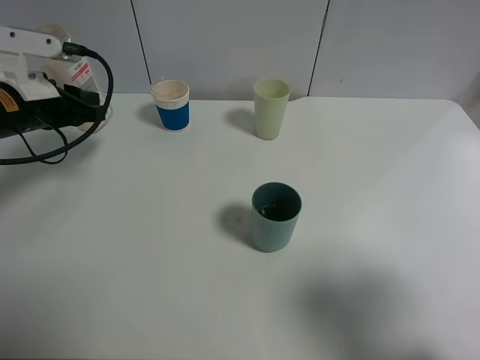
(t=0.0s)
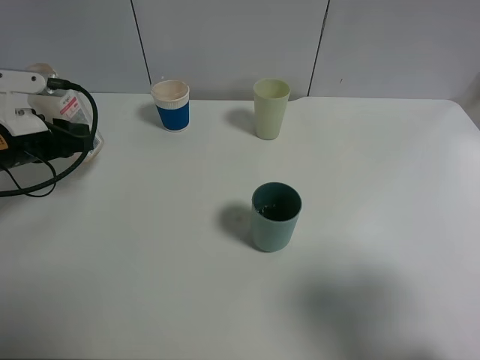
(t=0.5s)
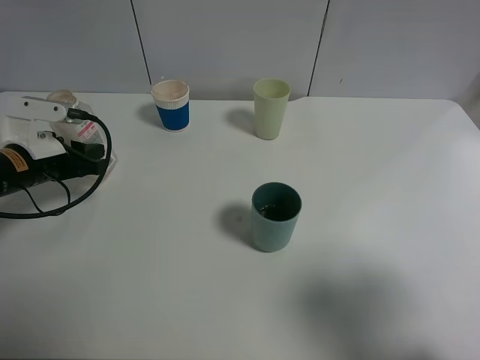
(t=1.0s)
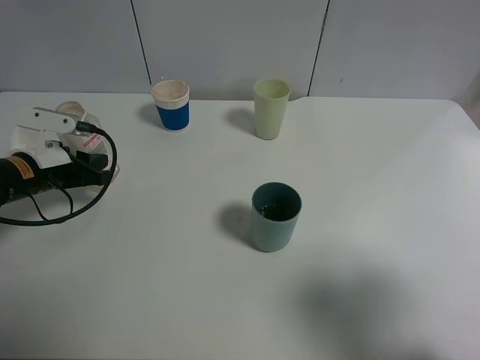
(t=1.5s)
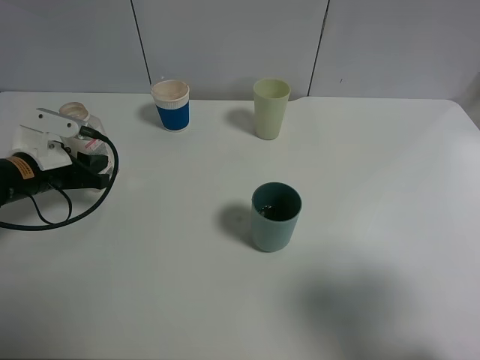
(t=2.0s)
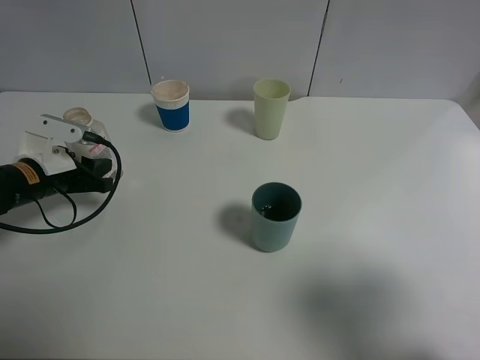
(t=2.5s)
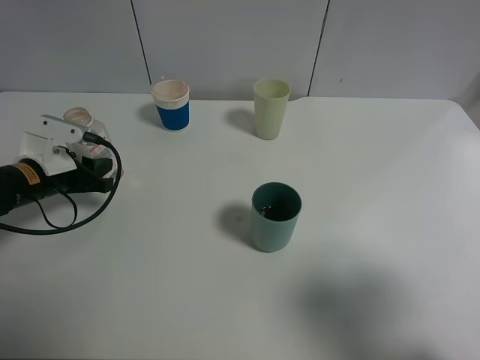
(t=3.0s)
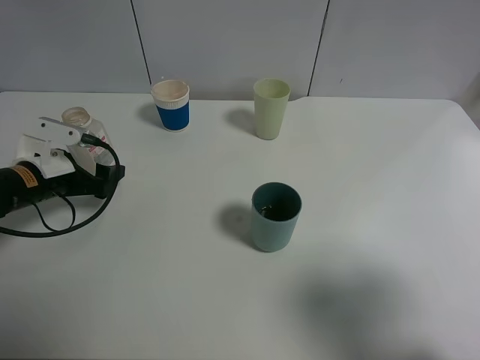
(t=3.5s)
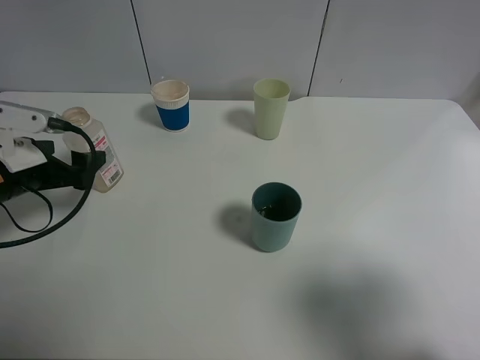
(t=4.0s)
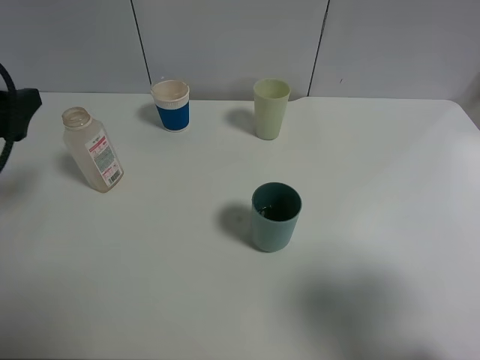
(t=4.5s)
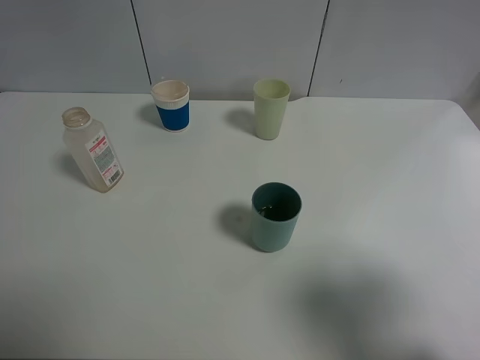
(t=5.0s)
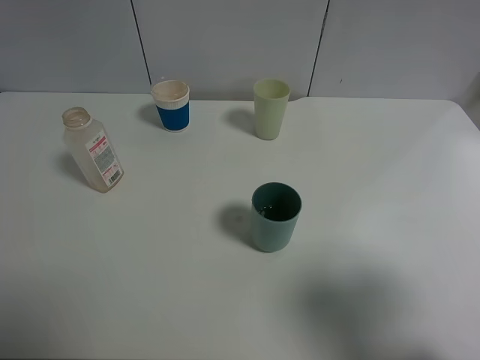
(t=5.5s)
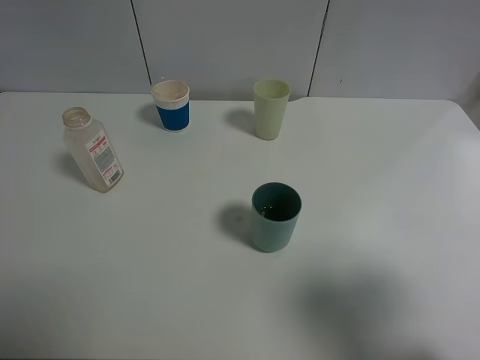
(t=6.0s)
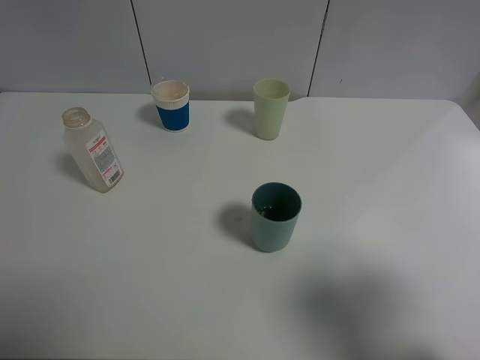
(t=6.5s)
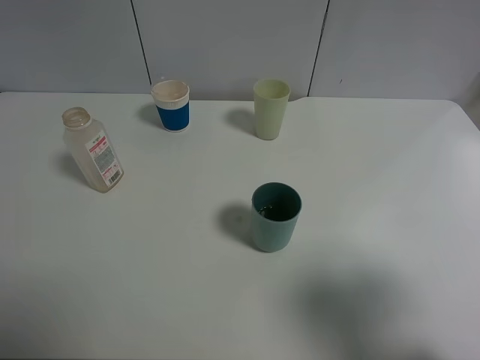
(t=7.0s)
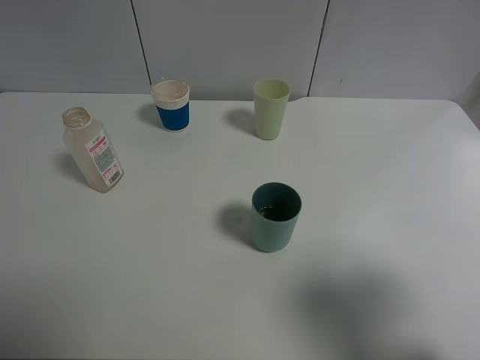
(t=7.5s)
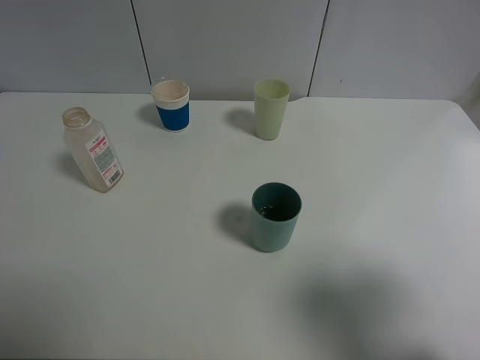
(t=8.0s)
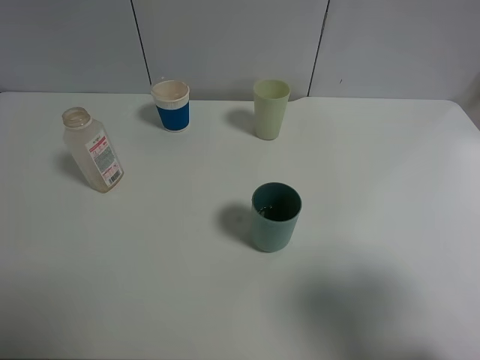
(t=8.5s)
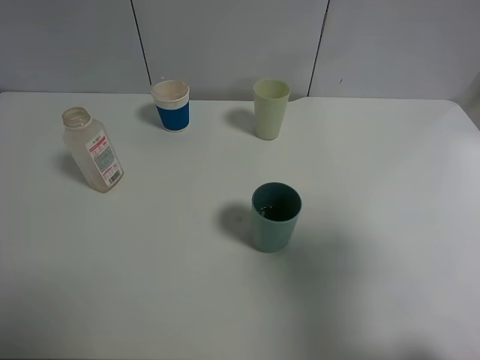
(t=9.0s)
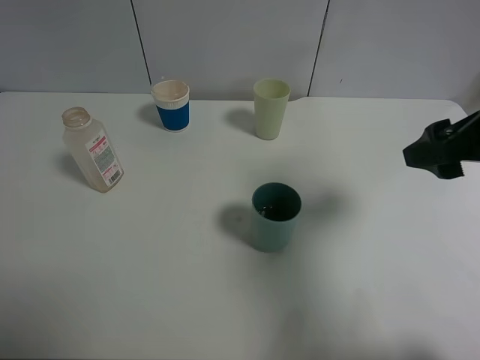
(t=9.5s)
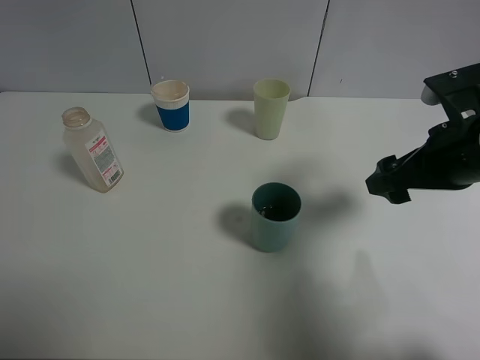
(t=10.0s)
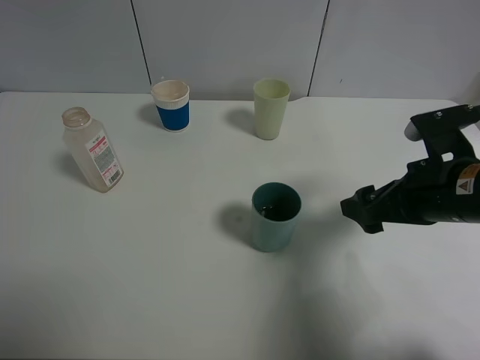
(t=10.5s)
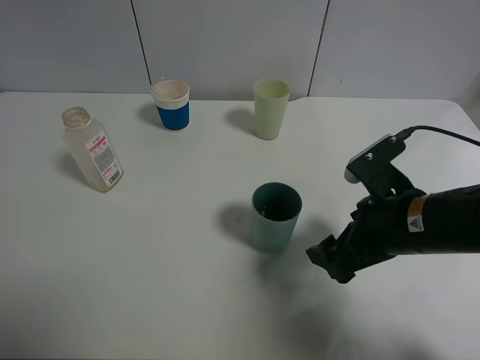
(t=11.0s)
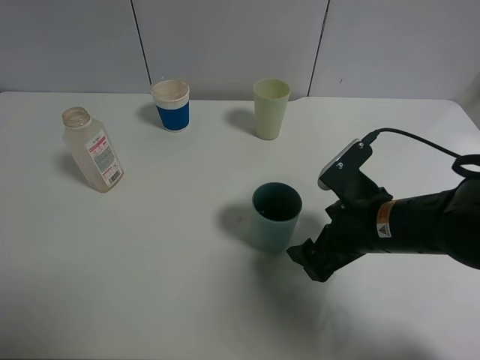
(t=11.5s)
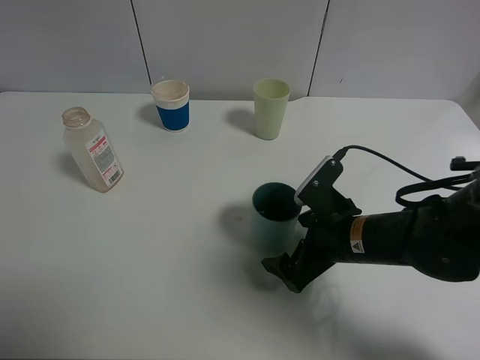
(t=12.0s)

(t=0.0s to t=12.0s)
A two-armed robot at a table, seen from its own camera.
Task of the whole recording: use a clamp to hold the bottle of the drink, pour the beverage into a random cup, then clamp the cup containing the drink and pour the drink into another random cup.
Step, t=0.0s - t=3.0s: Place the drink bottle on the table with left gripper.
t=0.0s - t=2.0s: The left gripper shifts roughly 10 cm downward.
t=2.0s - t=4.0s: The left gripper moves some 5 cm, and opens up.
t=4.0s - t=6.0s: The left gripper is displaced backward and upward by roughly 30 cm.
t=8.0s - t=10.0s: The right gripper is displaced forward by some 20 cm.
t=10.0s - t=12.0s: The right gripper moves downward and to the left, about 15 cm.

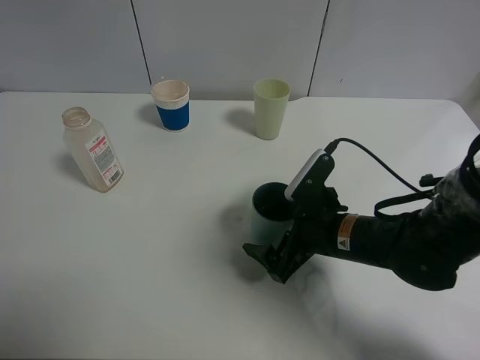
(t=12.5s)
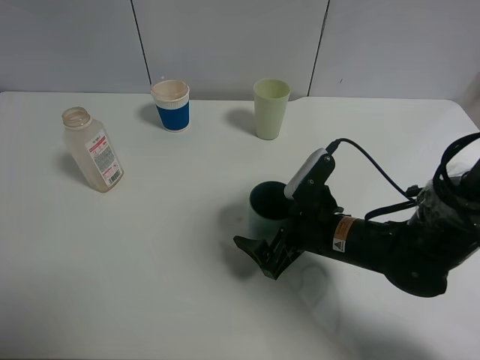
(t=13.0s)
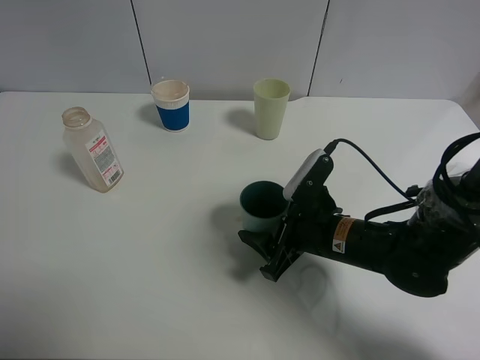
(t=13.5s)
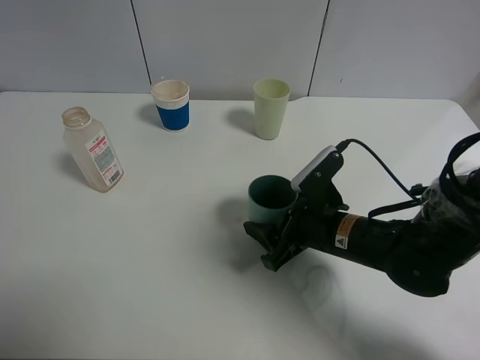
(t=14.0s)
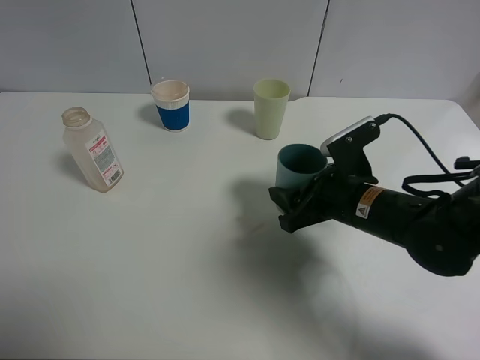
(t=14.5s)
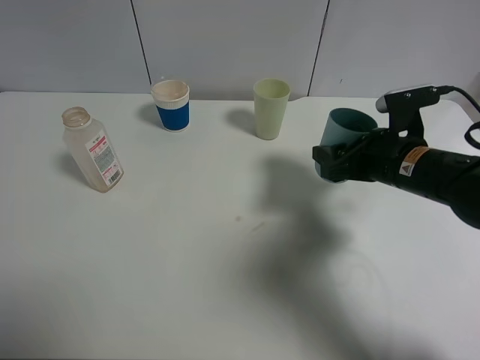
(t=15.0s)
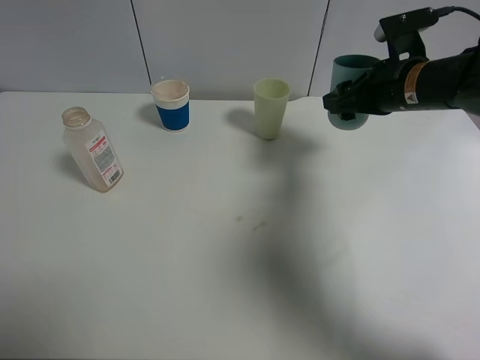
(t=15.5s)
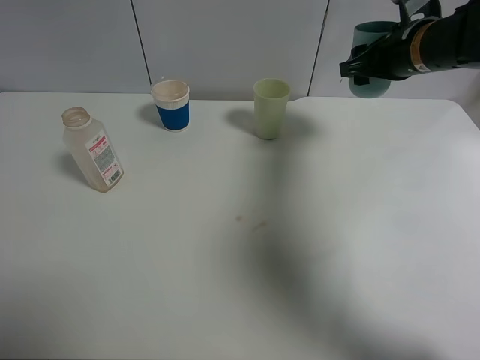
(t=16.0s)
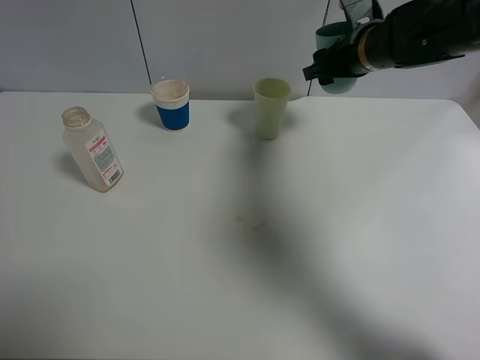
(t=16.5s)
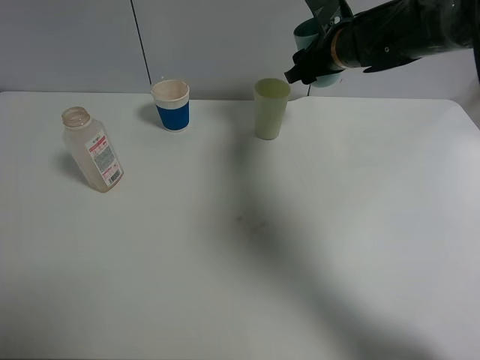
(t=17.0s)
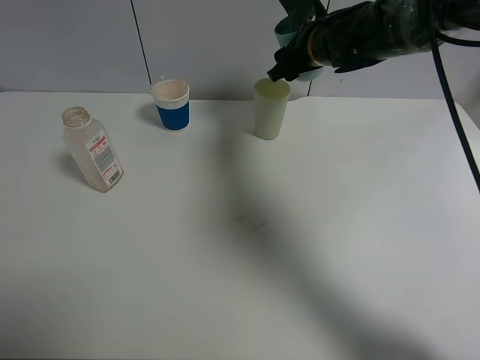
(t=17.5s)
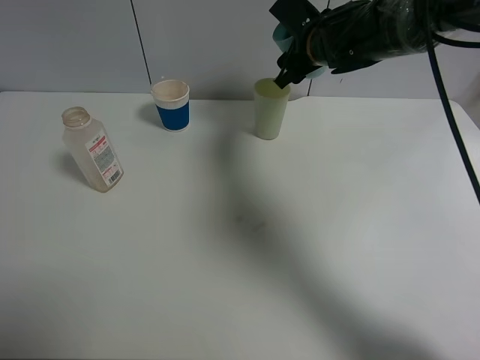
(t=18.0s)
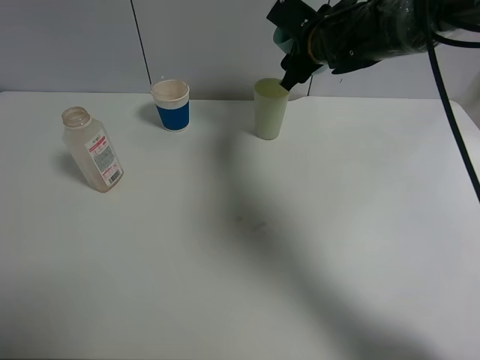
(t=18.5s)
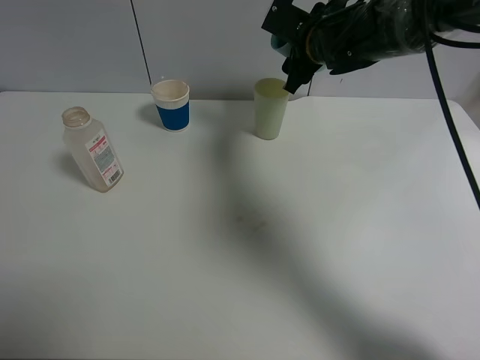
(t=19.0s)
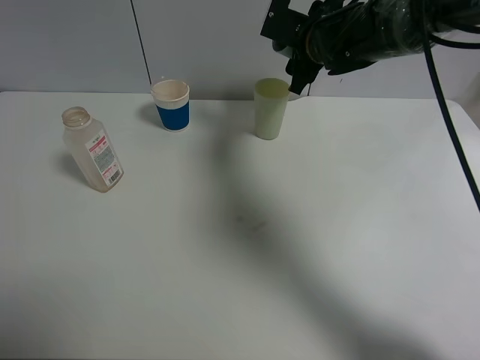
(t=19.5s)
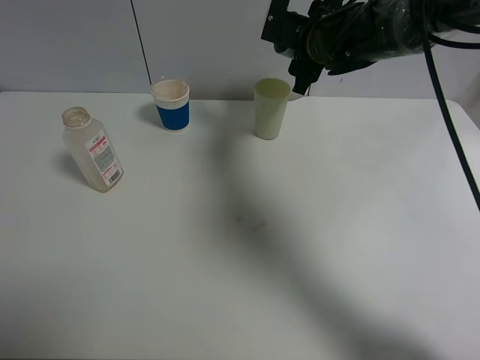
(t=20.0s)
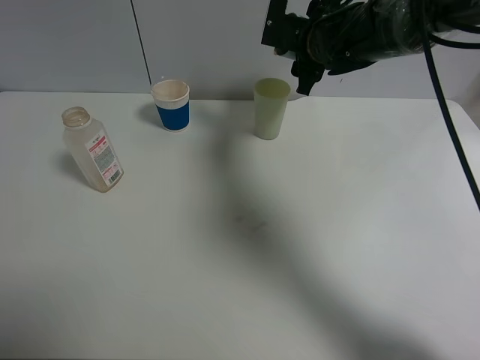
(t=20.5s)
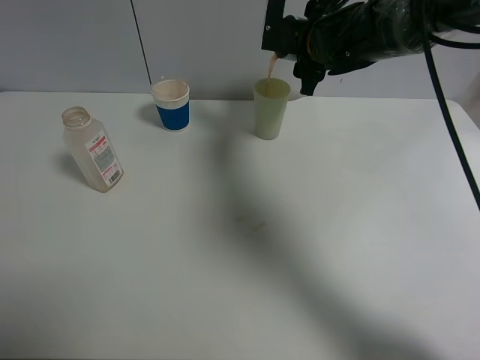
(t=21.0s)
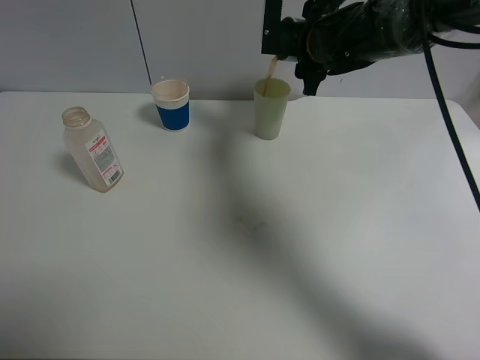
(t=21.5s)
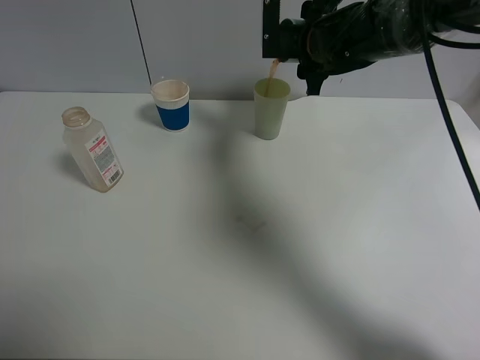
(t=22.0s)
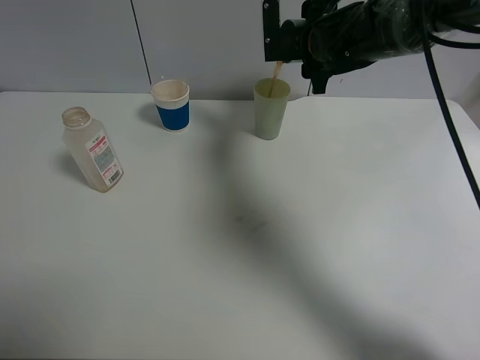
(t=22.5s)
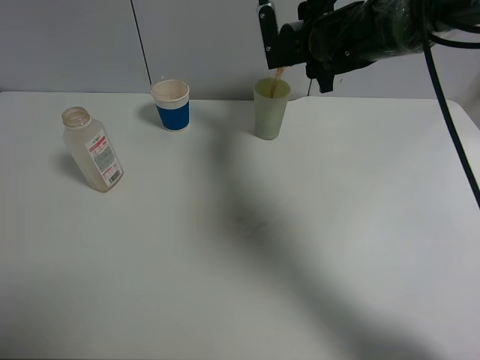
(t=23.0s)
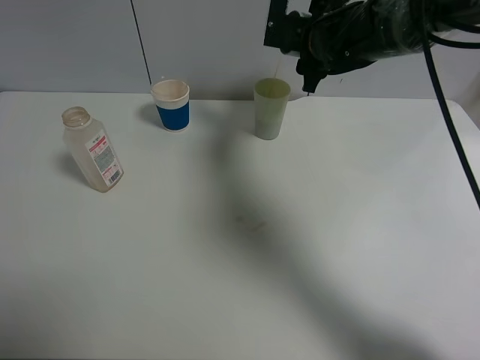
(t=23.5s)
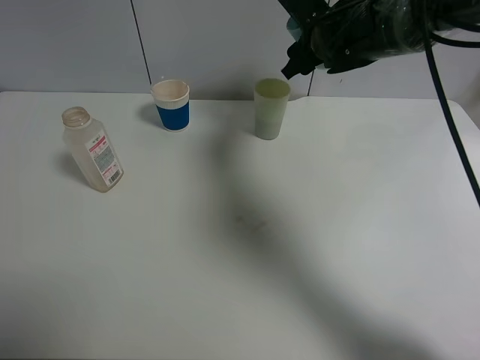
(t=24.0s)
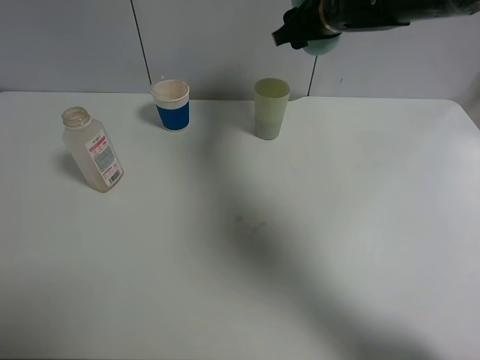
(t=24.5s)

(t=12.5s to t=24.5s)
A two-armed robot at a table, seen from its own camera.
Task of the whole recording: use a clamp to hold the bottle of the drink, pour the beverage into a random cup, then clamp the cup containing the drink and pour the drink into another random cup.
Step, t=14.5s - t=23.5s: Pour the drink into the green plastic cup with right gripper.
t=12.5s - t=14.5s: The right gripper closes its fingers.
t=14.5s - t=16.5s: The right gripper moves forward and upward, about 20 cm.
t=16.5s - t=18.5s: The right gripper shifts roughly 5 cm to the left.
t=20.5s - t=22.5s: The grippers move only a little.
t=22.5s - t=24.5s: The right gripper travels upward by roughly 5 cm.

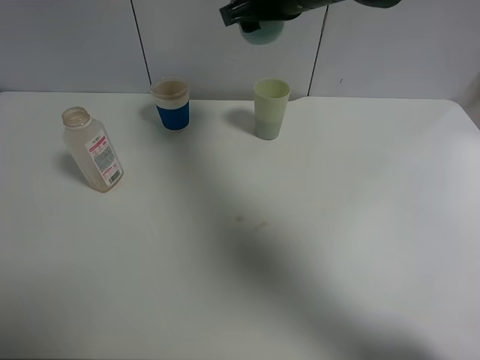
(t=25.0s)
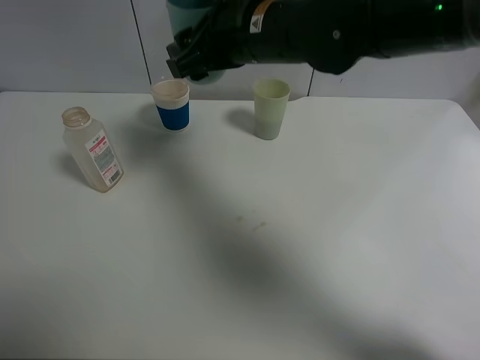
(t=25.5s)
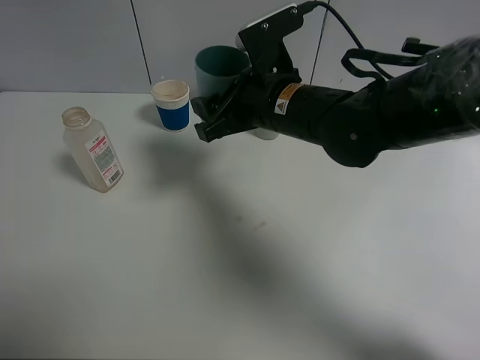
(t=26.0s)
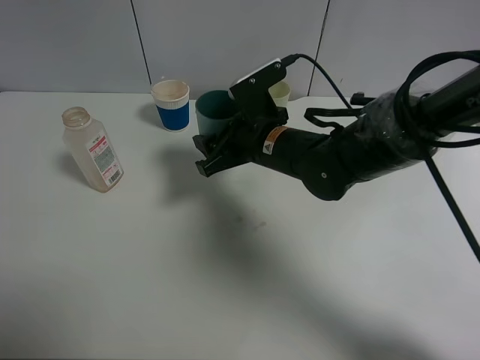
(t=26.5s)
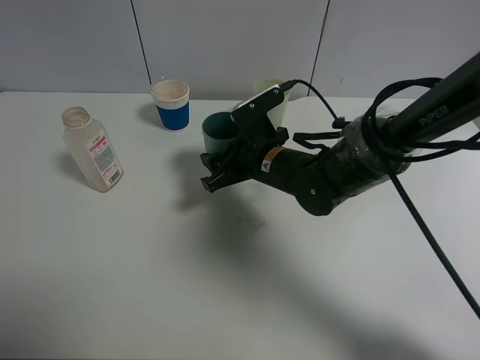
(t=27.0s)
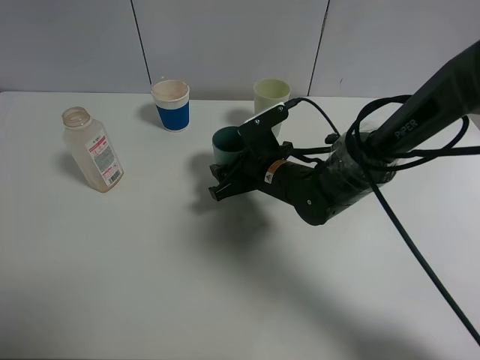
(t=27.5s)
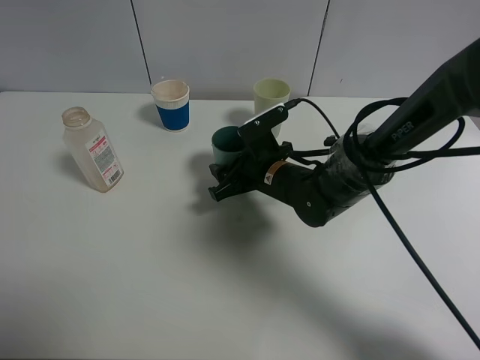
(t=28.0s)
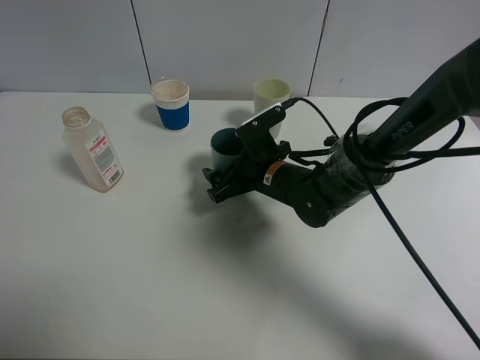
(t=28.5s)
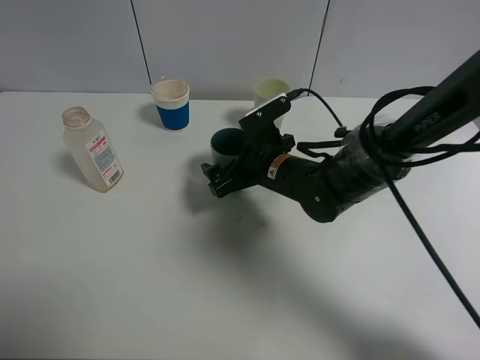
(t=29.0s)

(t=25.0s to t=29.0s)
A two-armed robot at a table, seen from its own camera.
Task of the whole recording: use a clamp to hold the bottle of the drink, pour the beverage into a random cup, then clamp the cup containing the drink and pour the drink into another random cup.
Step, t=25.0s - t=28.5s: Place the blue plastic cup on the table with right gripper.
t=25.0s - t=27.0s: The right gripper heads downward, covering about 20 cm.
t=27.0s - t=29.0s: The right gripper opens up.
